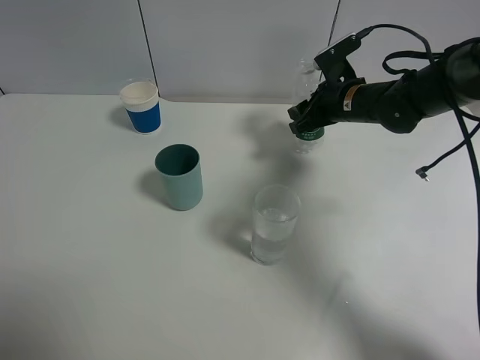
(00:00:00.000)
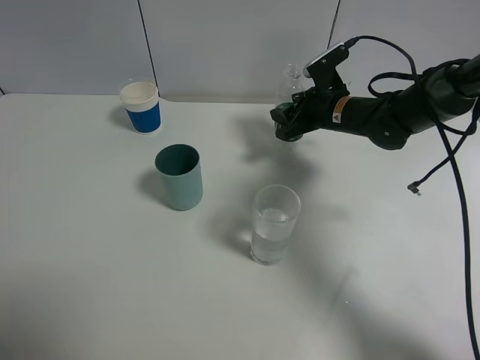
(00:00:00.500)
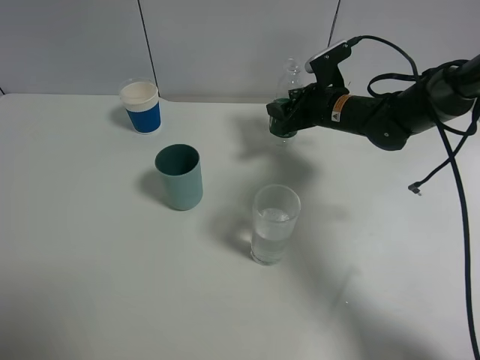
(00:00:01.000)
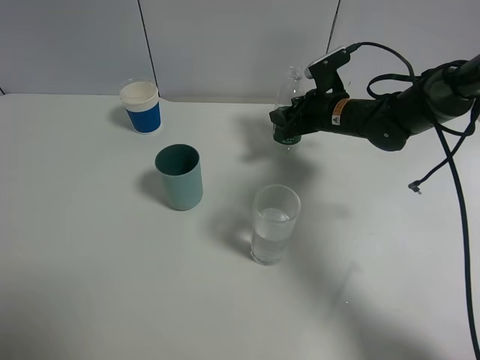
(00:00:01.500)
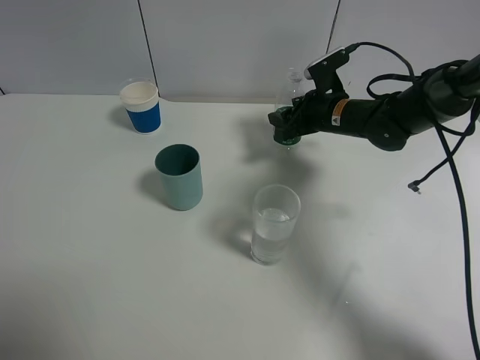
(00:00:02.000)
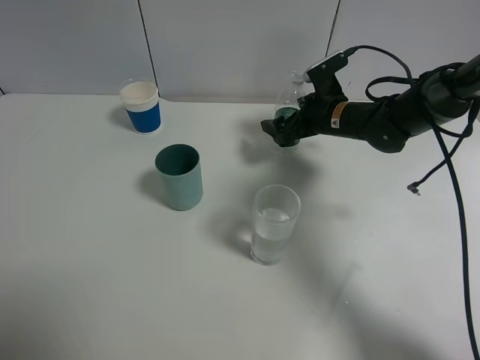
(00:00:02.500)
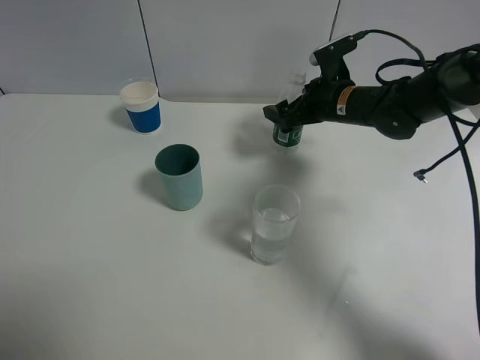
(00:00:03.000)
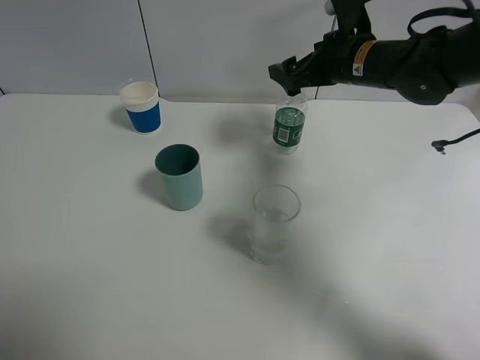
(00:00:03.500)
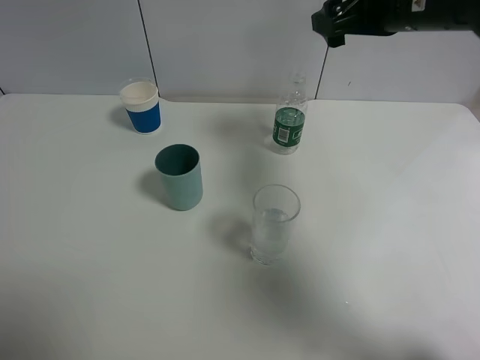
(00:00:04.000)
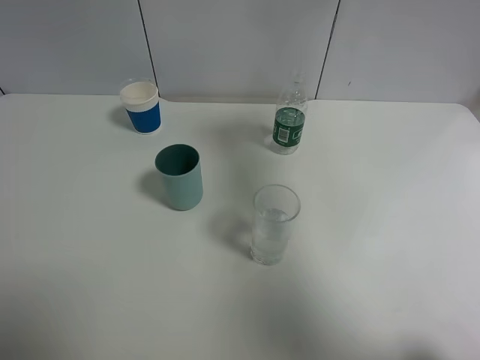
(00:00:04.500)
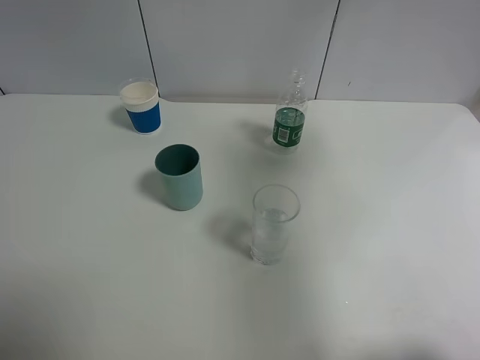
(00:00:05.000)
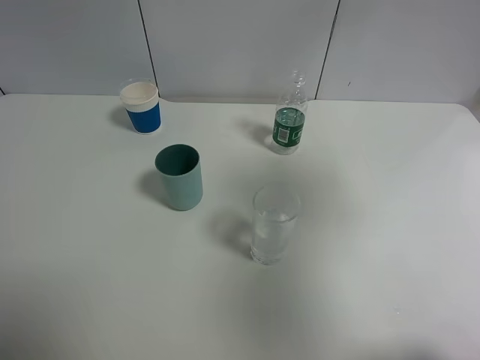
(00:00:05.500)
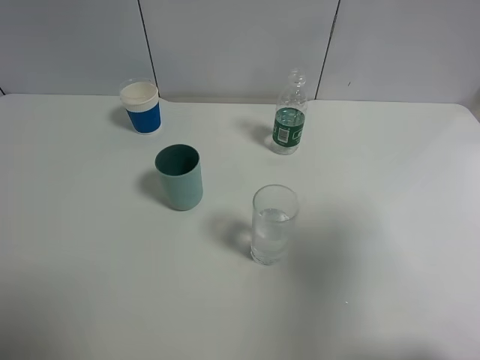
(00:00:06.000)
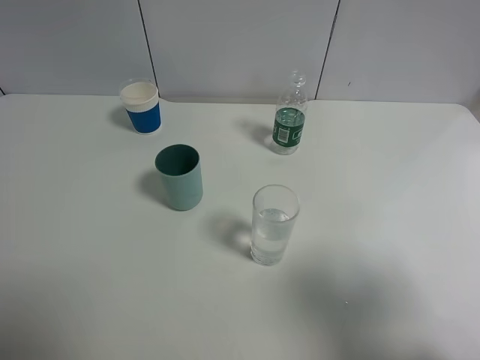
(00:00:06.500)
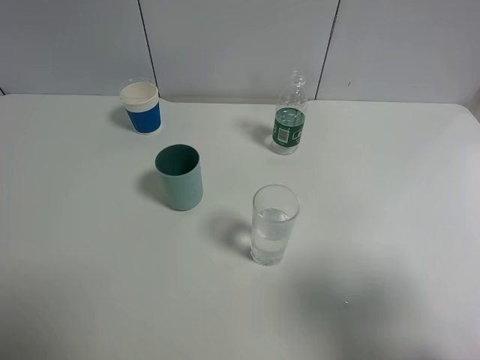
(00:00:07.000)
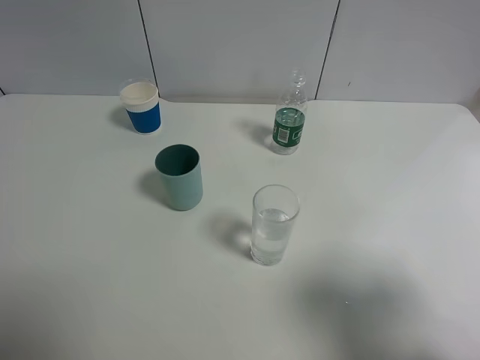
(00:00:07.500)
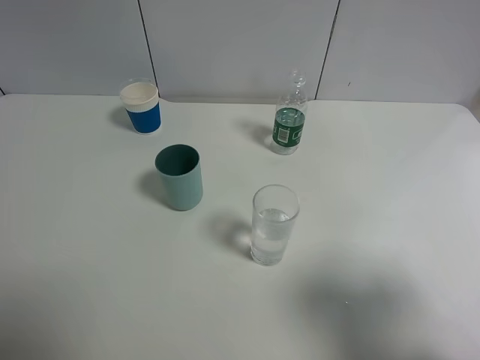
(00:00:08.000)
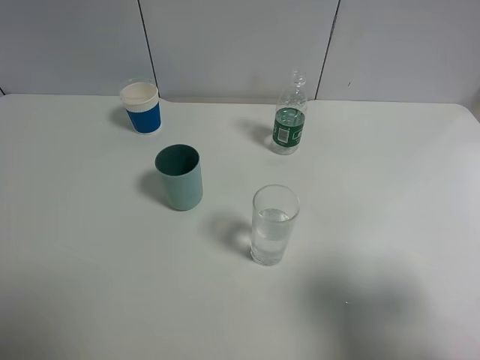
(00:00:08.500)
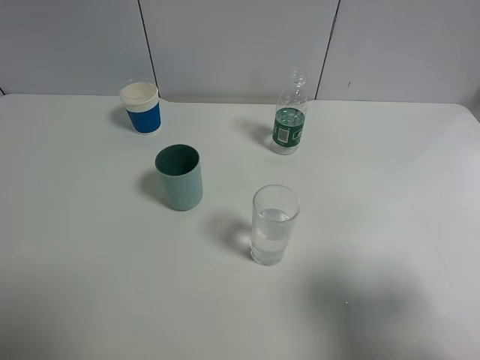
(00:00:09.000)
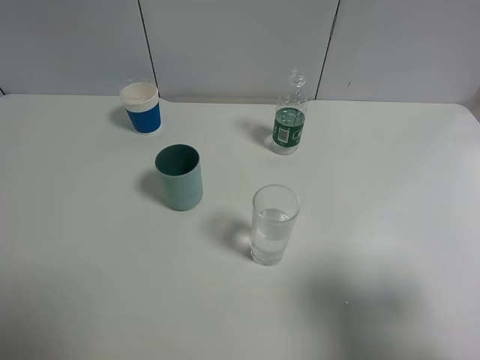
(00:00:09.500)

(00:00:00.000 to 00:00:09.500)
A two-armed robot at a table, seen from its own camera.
Task of the whole recording: use a gripper to hold the bottle of the drink and pour it into a random cup.
Step, 00:00:00.000 - 00:00:03.000: Place the mineral water bottle on the table with the right gripper.
00:00:00.000 - 00:00:02.000: There are only small adjustments of the grippers.
00:00:02.000 - 00:00:04.000: The right gripper is displaced upward by approximately 20 cm, and opens its fingers.
00:00:04.000 - 00:00:05.500: The right gripper goes about 30 cm backward, upward and to the right.
00:00:05.500 - 00:00:07.500: The right gripper travels downward and backward by approximately 20 cm.

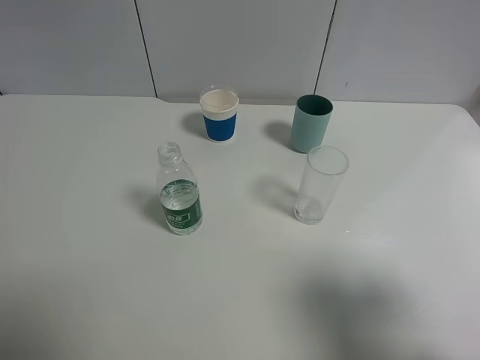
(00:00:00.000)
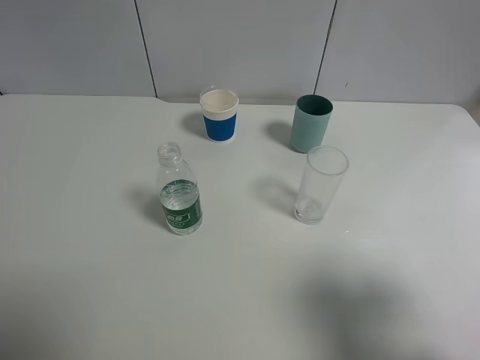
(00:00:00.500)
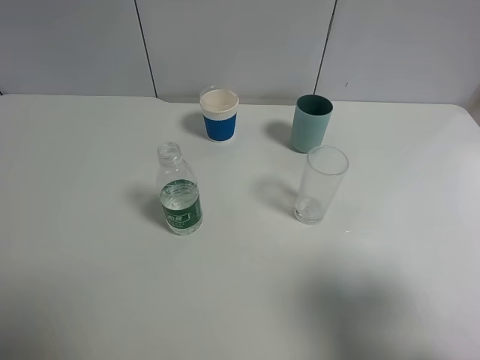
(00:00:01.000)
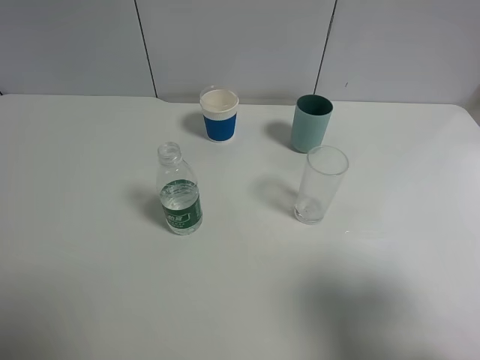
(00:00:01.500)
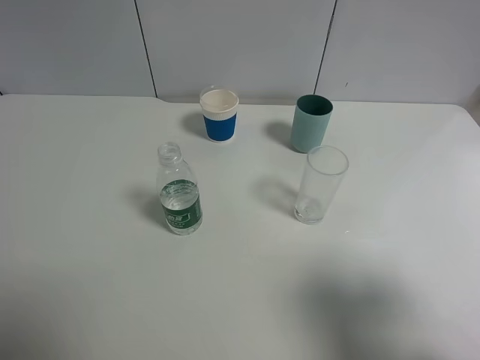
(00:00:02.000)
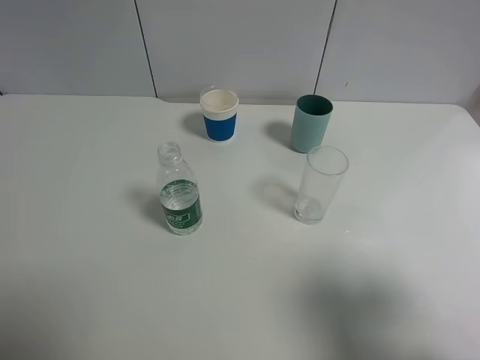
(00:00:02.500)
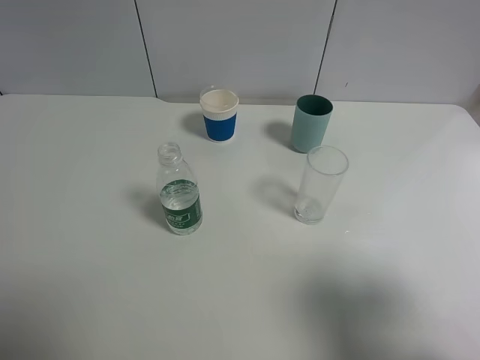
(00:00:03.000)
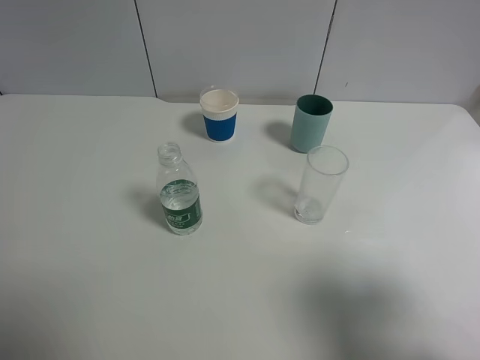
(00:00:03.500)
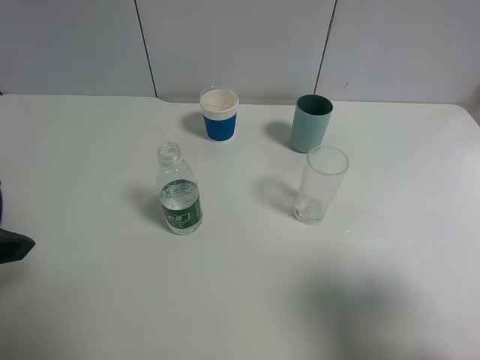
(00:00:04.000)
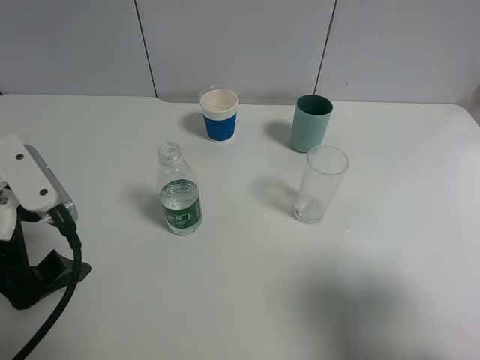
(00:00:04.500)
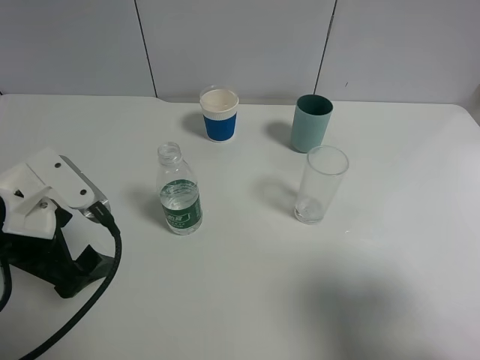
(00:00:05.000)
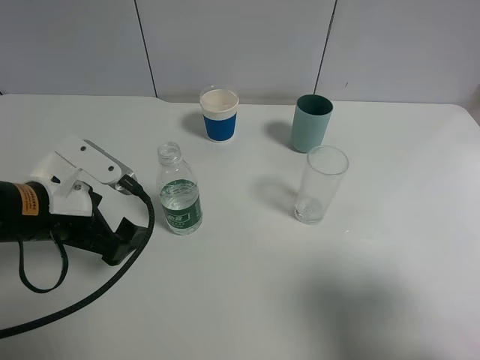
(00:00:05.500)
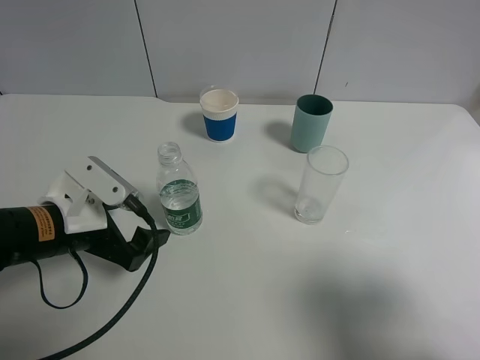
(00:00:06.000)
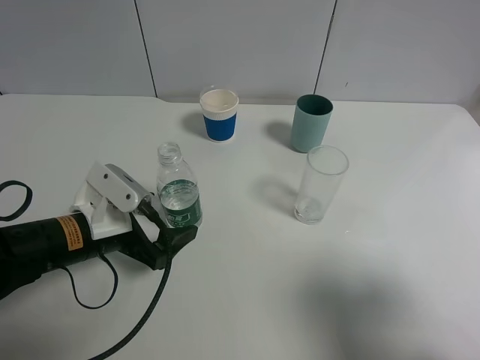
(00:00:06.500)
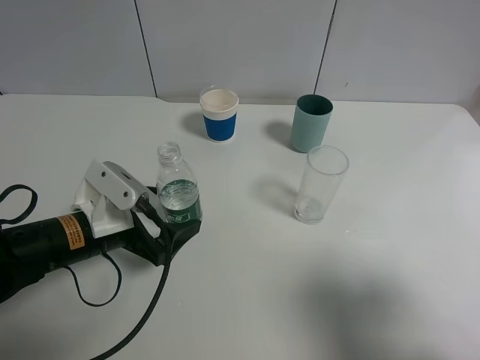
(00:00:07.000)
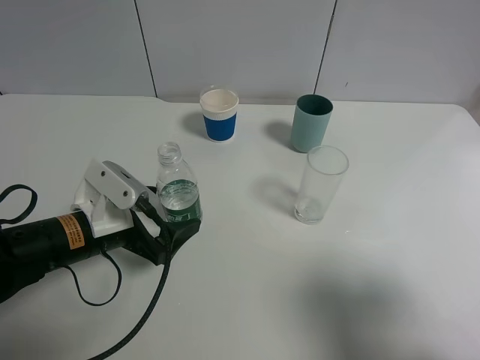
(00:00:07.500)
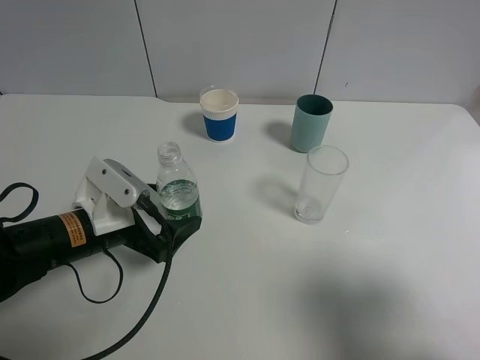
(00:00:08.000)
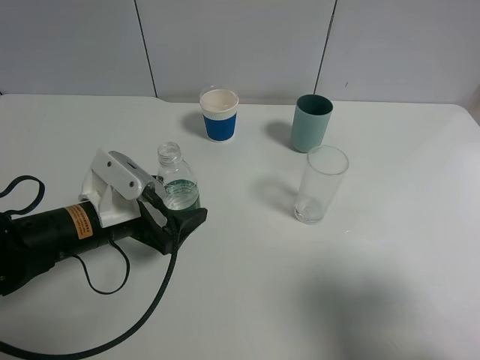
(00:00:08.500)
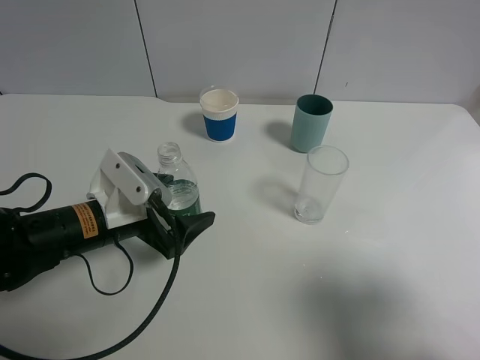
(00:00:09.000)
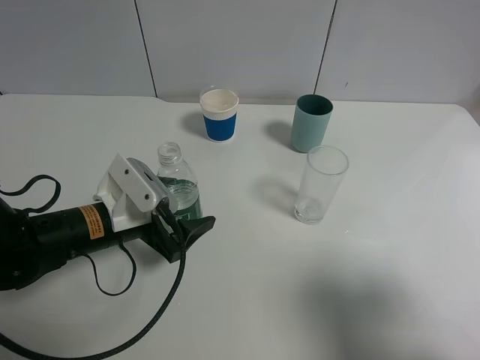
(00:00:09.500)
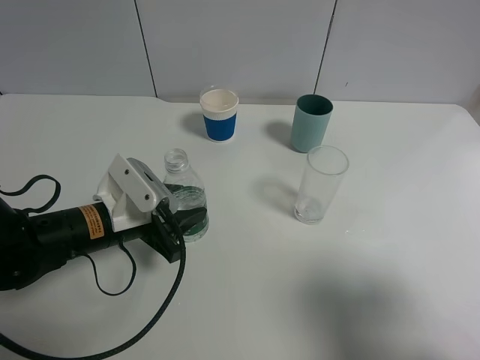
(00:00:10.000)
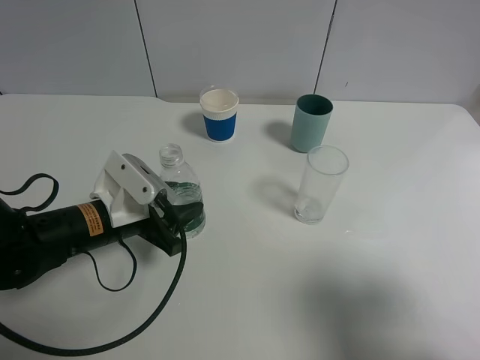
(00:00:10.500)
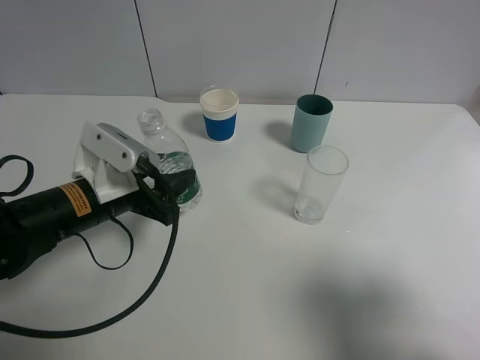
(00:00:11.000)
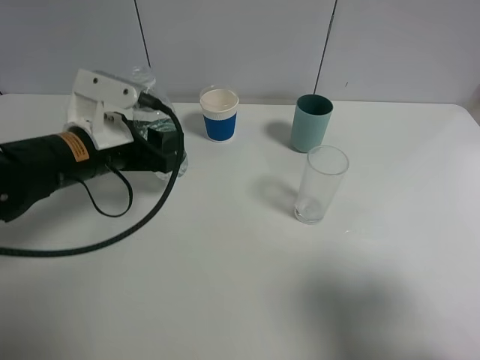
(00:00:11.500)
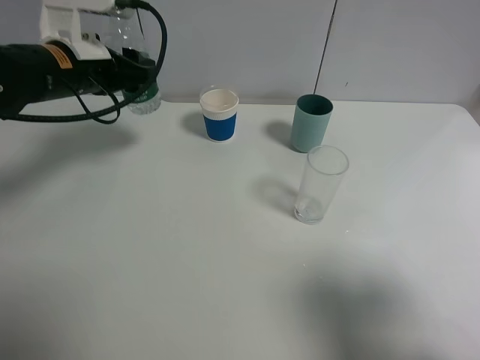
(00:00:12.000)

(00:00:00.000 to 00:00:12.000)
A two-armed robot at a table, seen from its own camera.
Task of the whole recording: use a gripper to hold the bottle of the drink and pour it into a random cup.
Step, 00:00:00.000 - 00:00:09.500: Grasp the mineral water bottle with the left gripper.
00:00:00.000 - 00:00:02.000: Both grippers stay about where they are.
00:00:02.000 - 00:00:04.000: The left gripper travels forward and to the right by about 15 cm.
00:00:04.000 - 00:00:06.000: The left gripper heads downward, covering approximately 15 cm.
00:00:06.000 - 00:00:08.000: The grippers make only small movements.
00:00:08.000 - 00:00:10.000: The left gripper closes.
00:00:10.000 - 00:00:12.000: The left gripper moves upward and forward, approximately 20 cm.

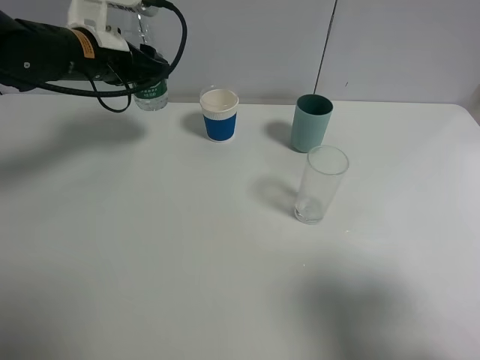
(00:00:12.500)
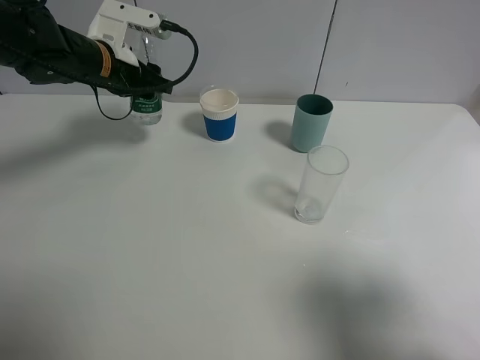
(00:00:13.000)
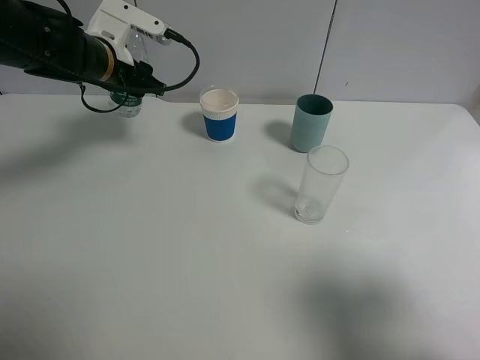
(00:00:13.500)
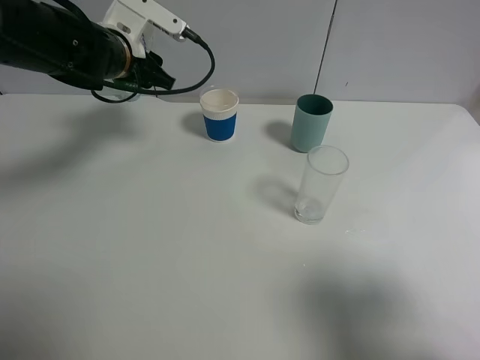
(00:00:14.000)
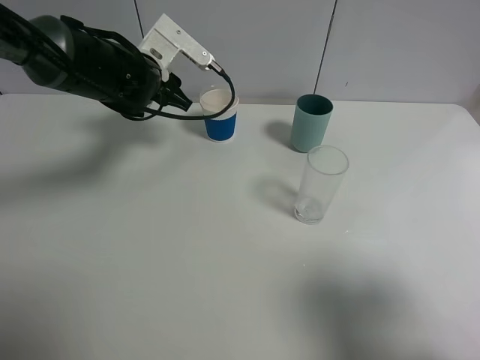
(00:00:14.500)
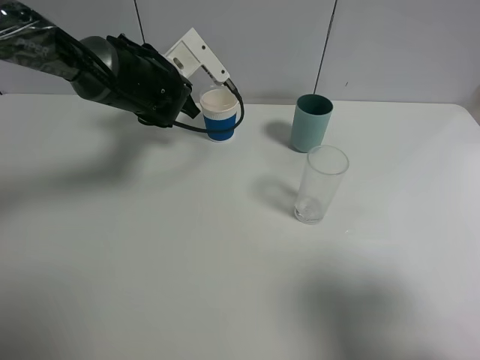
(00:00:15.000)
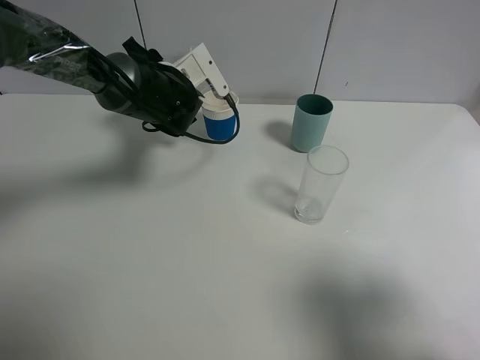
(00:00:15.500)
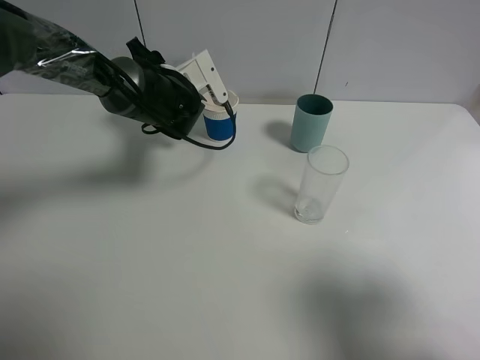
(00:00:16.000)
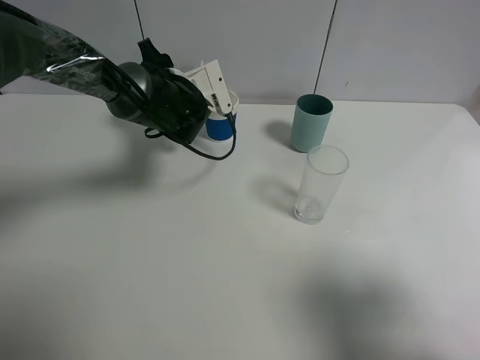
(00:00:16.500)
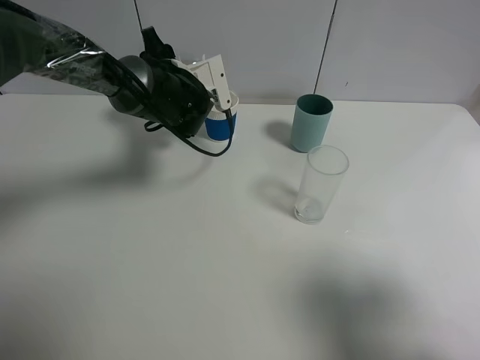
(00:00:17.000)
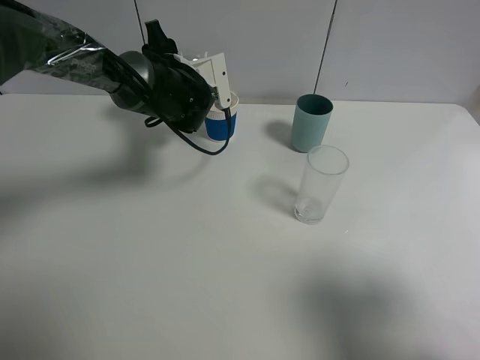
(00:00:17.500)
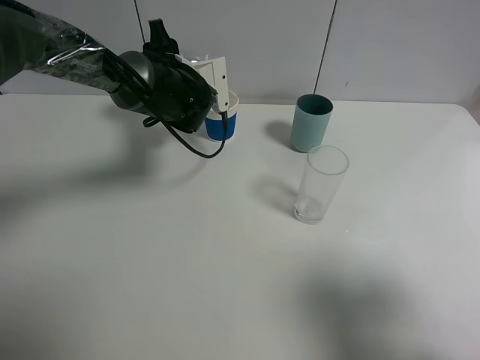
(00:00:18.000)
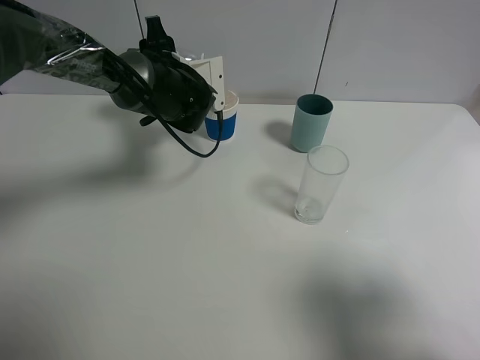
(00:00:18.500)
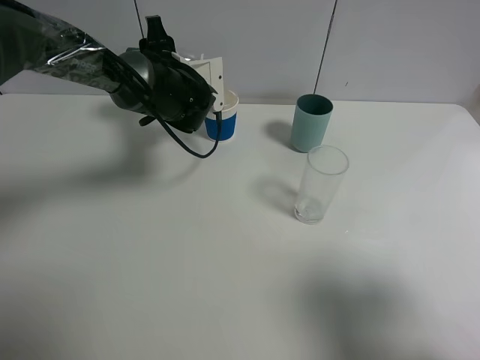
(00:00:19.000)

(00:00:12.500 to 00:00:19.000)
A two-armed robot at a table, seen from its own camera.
Task of the whole recording: use a gripper to hold the bottle of the drink and pour it into a random cup.
00:00:12.500 - 00:00:14.500: The left gripper goes about 10 cm to the right and downward.
00:00:17.000 - 00:00:19.000: The grippers stay close to where they were, moving slightly.
